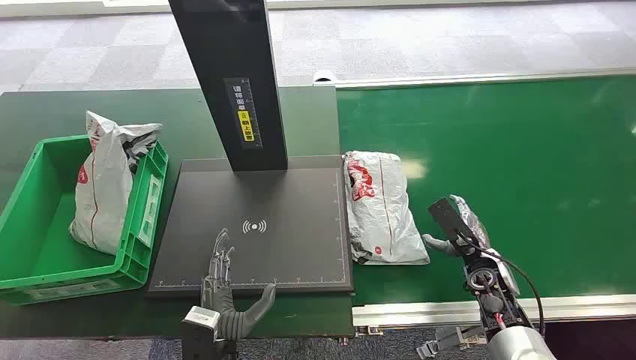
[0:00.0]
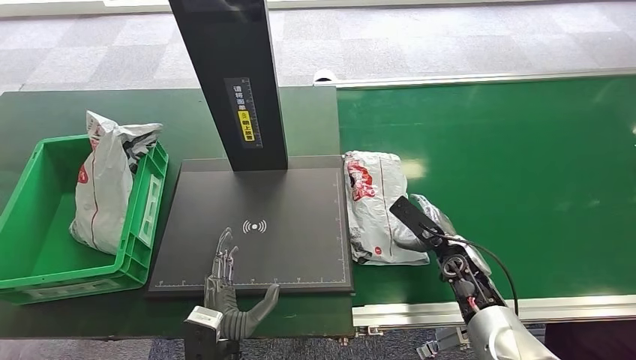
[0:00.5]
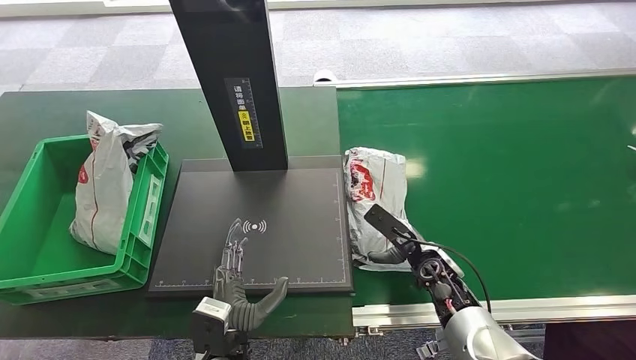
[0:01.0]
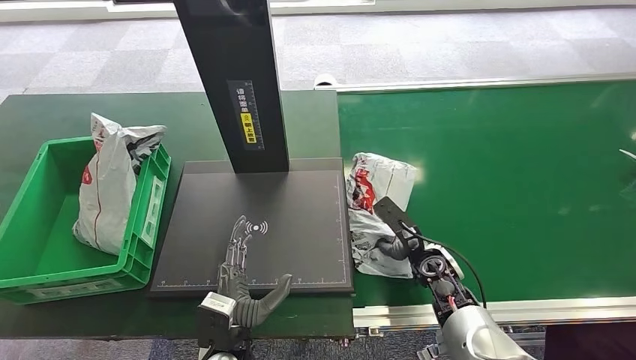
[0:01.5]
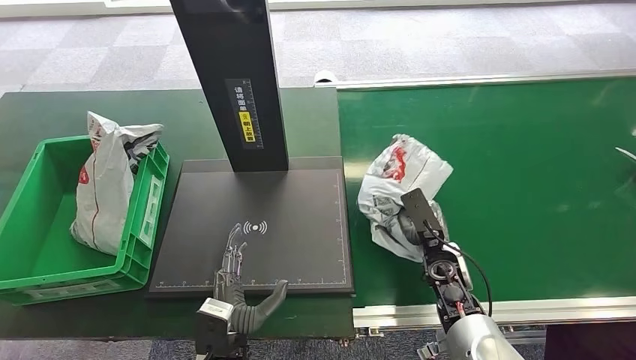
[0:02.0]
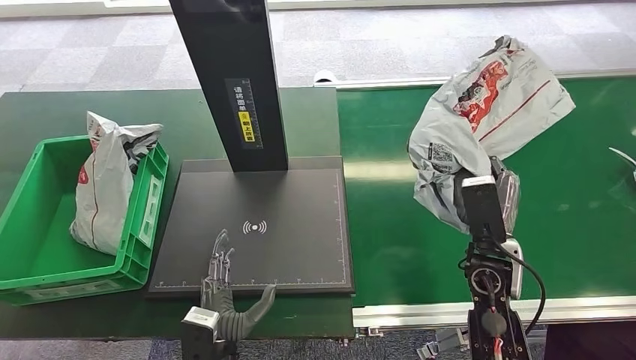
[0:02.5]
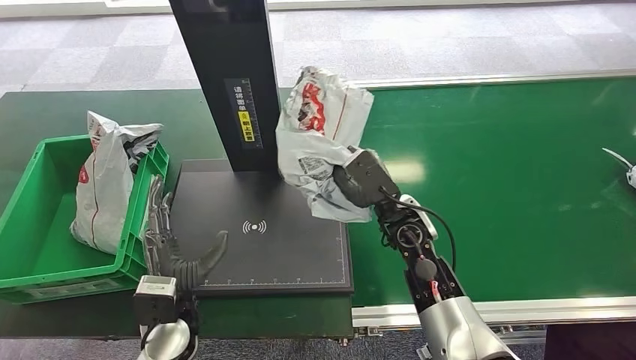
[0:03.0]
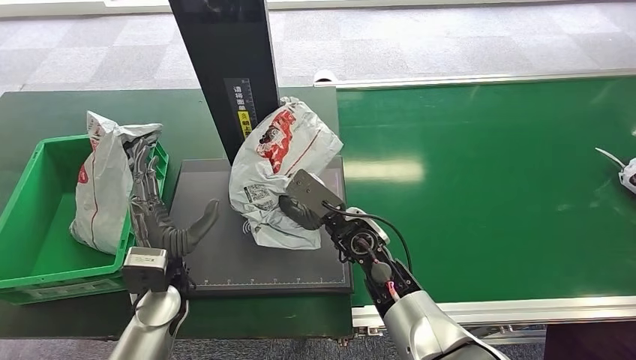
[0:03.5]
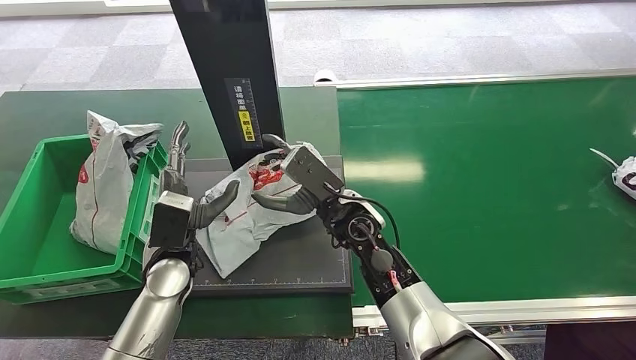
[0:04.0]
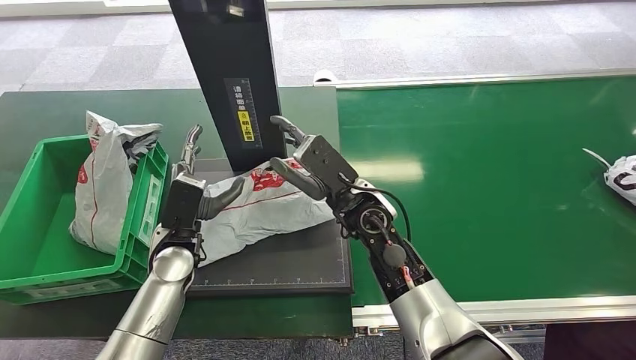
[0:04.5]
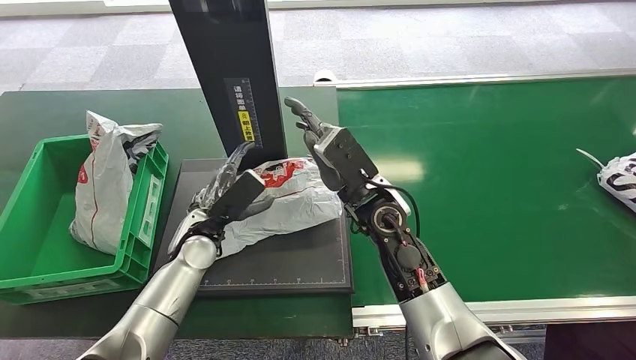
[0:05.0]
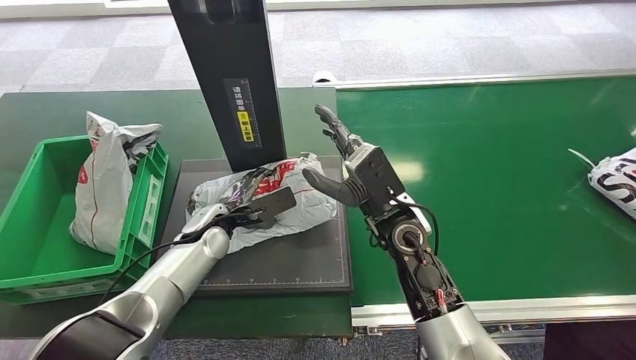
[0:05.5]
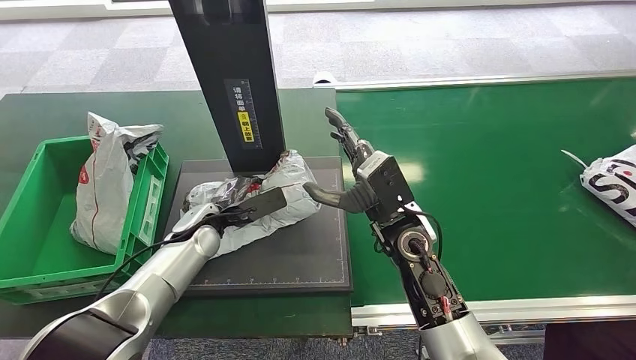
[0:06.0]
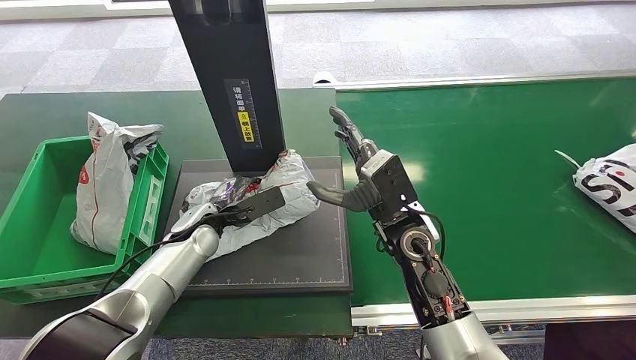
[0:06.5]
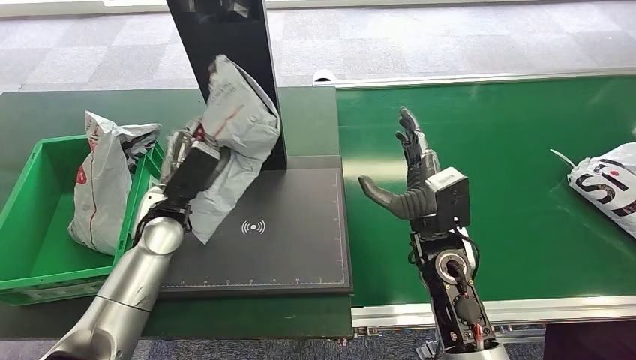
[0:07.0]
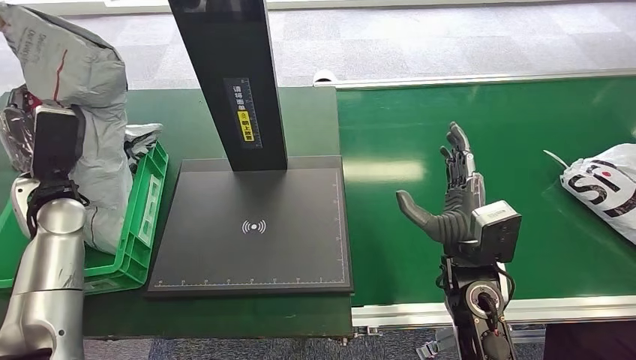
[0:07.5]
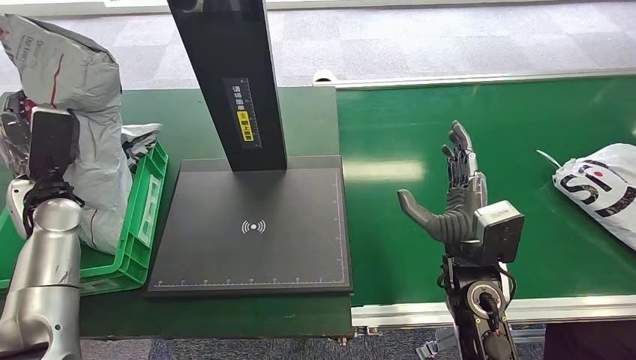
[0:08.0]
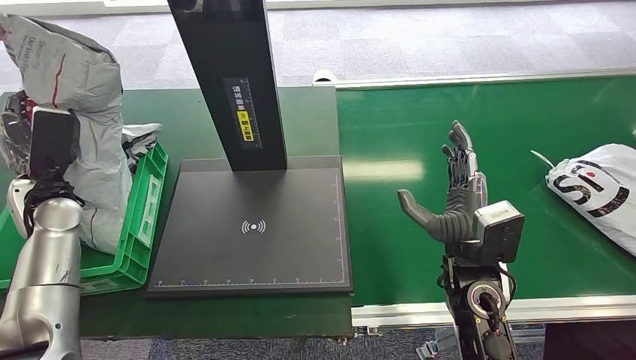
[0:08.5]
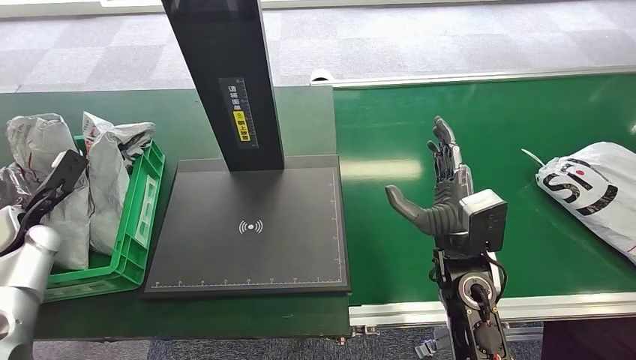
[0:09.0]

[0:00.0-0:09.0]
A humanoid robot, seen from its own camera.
Task of the whole recording: Weigh the package on the weighing device and place it in the left basket.
Step, 0:00.0 to 0:02.0: Pick up the package from the conveyor belt.
Step, 0:02.5 to 0:04.5: Place the package onto the inbound machine.
Step, 0:05.5 to 0:08.0: Pick up the package from the inbound machine.

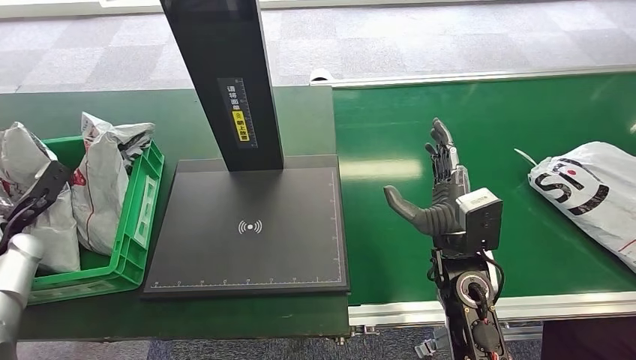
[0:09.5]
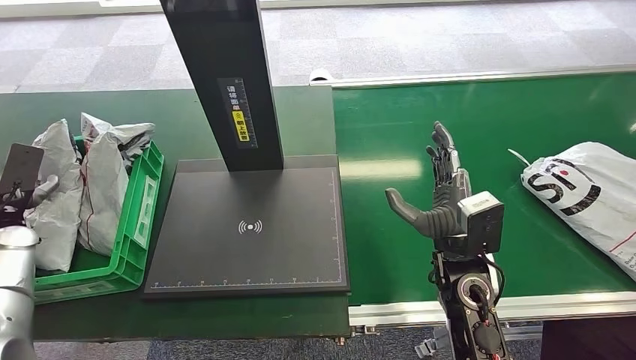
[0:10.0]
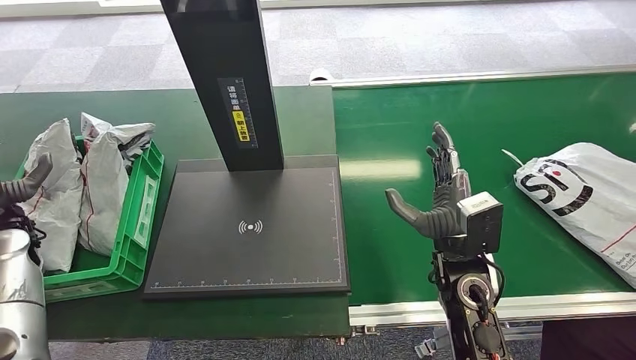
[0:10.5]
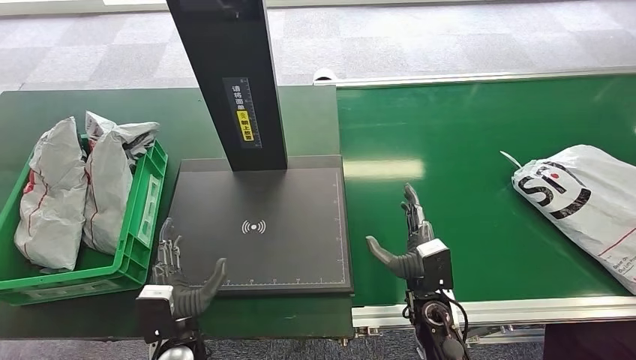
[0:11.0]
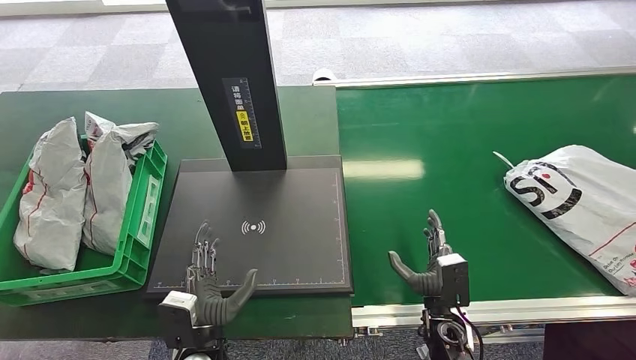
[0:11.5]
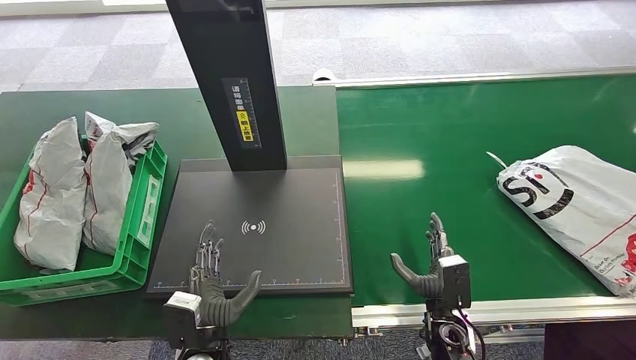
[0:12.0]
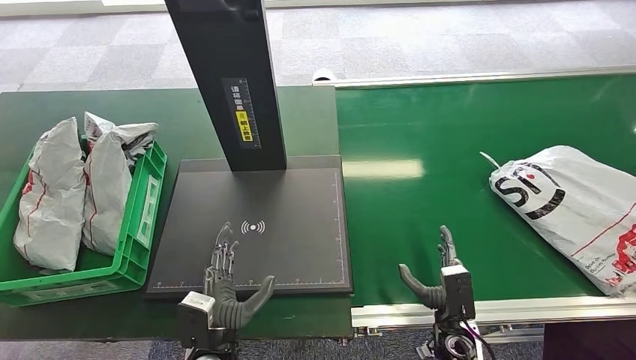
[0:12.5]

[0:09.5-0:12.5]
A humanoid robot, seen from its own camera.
Task of the whole recording: Weigh the package on the weighing device and place it in the left basket.
Step, 0:09.5 to 0:12.0: Place the package into the parcel locker.
0:11.0 to 0:12.5: The left hand moves to the right, some 5 cm; the right hand goes about 10 cm downward, to the right and backward.
